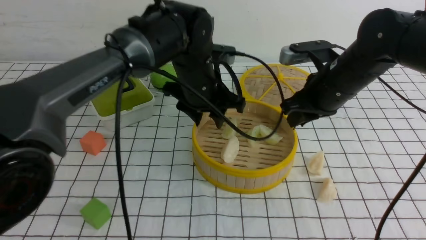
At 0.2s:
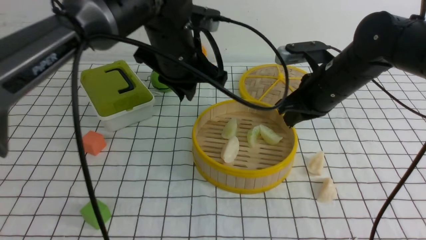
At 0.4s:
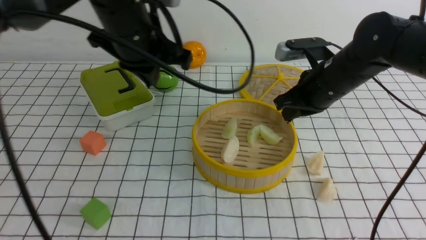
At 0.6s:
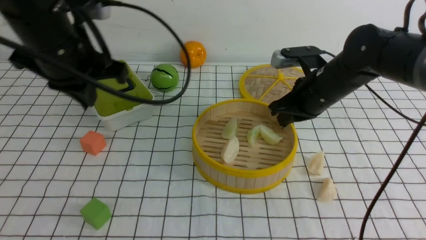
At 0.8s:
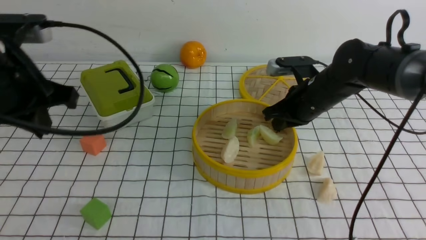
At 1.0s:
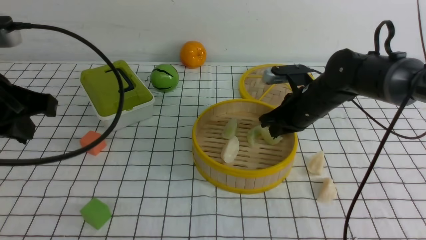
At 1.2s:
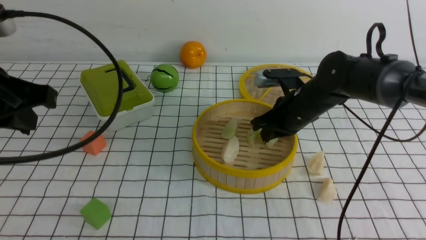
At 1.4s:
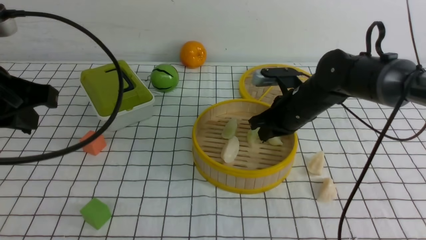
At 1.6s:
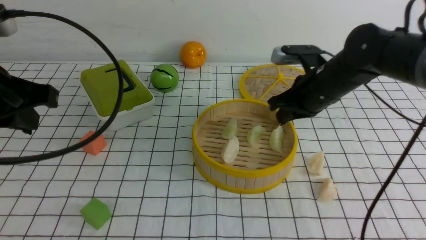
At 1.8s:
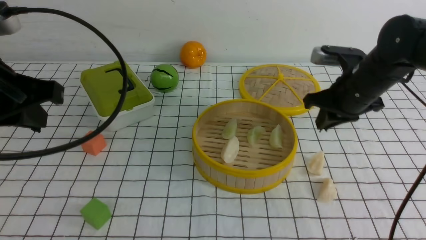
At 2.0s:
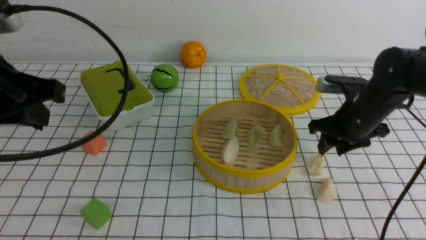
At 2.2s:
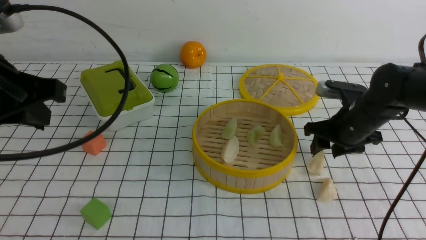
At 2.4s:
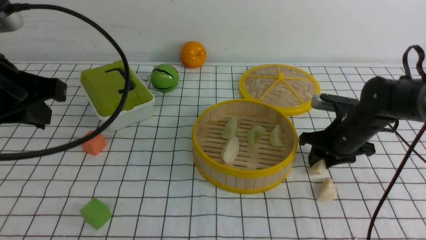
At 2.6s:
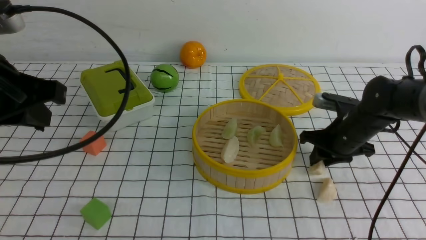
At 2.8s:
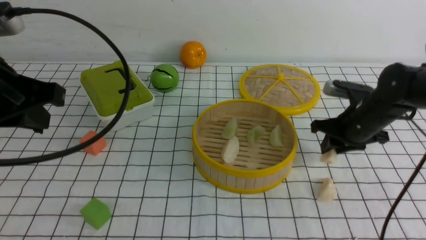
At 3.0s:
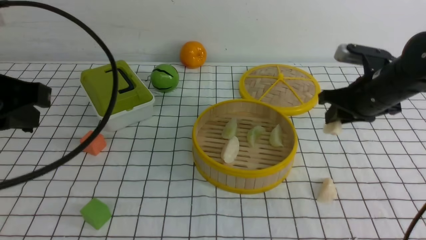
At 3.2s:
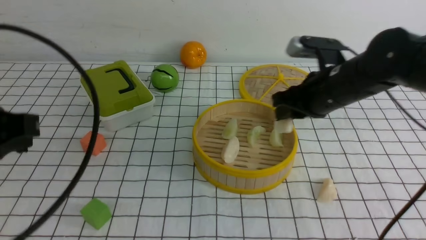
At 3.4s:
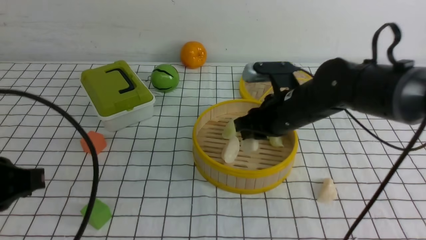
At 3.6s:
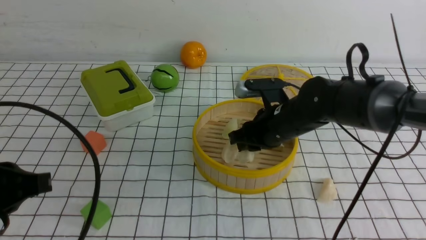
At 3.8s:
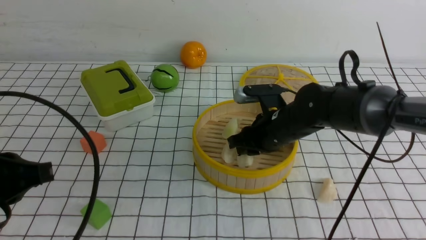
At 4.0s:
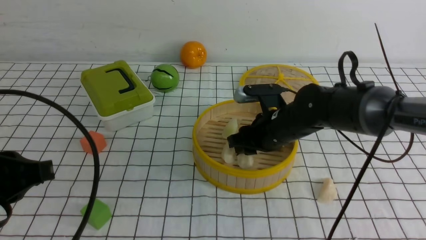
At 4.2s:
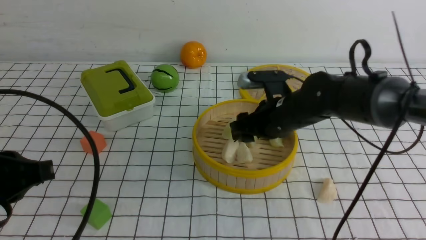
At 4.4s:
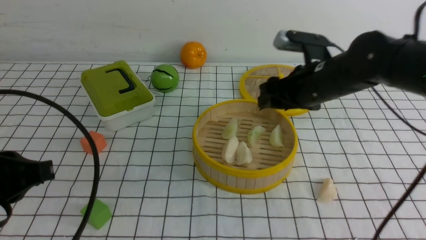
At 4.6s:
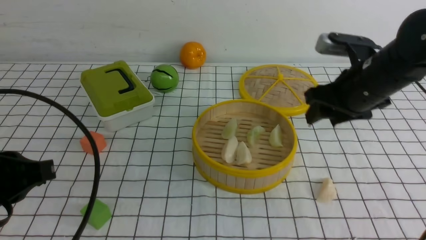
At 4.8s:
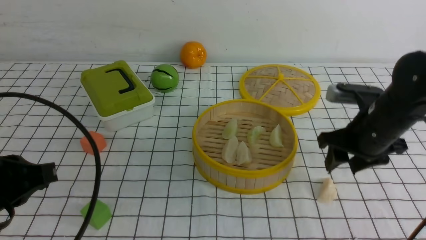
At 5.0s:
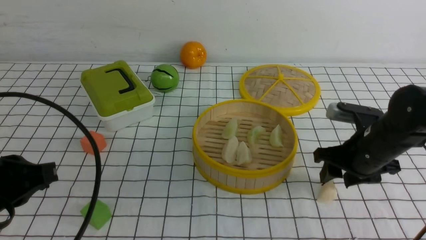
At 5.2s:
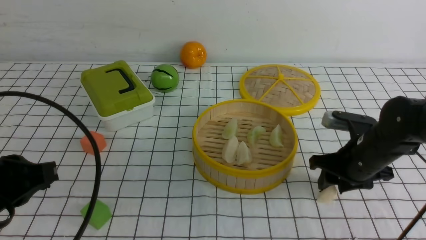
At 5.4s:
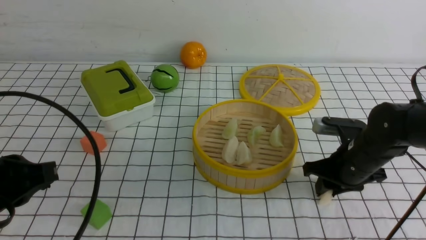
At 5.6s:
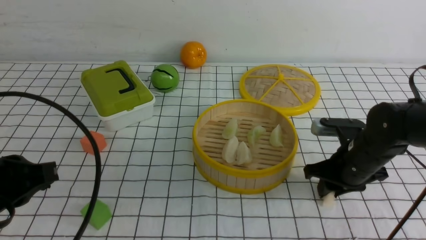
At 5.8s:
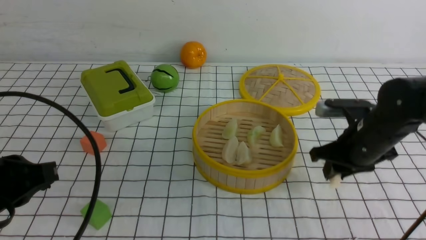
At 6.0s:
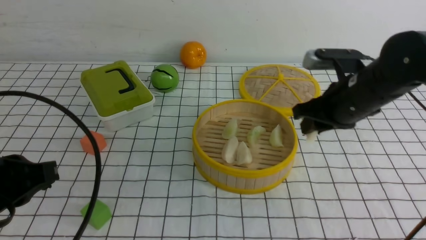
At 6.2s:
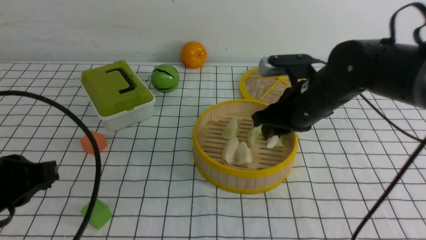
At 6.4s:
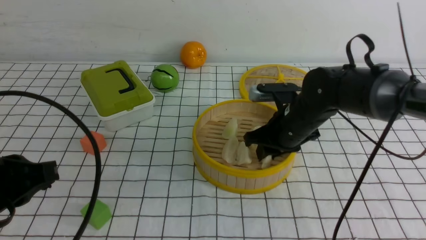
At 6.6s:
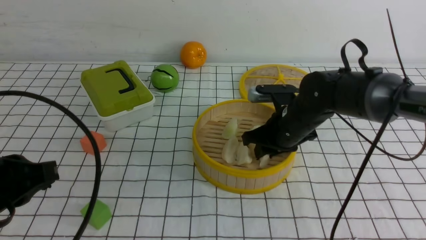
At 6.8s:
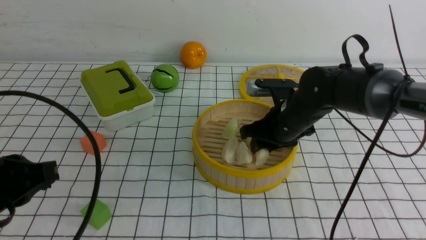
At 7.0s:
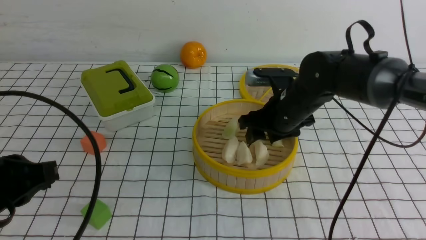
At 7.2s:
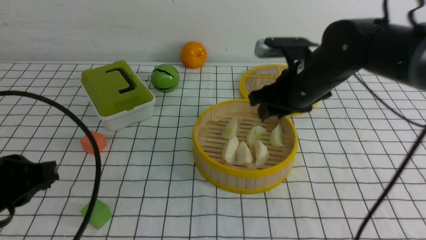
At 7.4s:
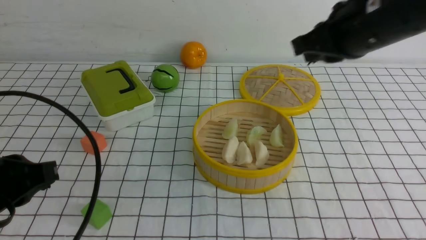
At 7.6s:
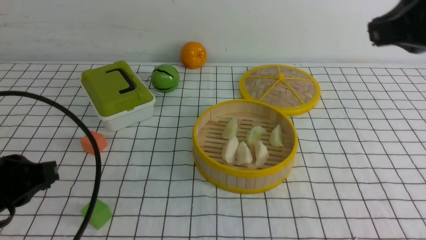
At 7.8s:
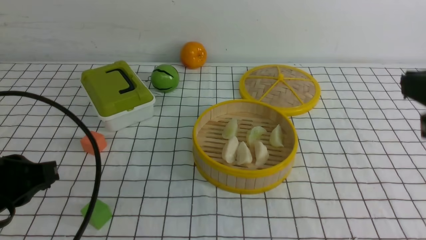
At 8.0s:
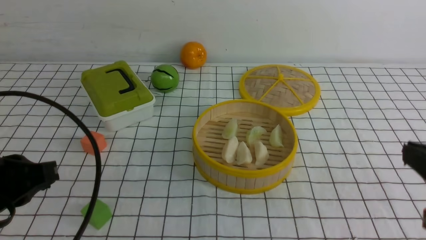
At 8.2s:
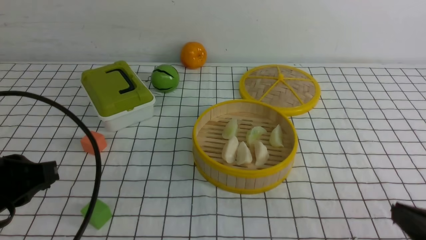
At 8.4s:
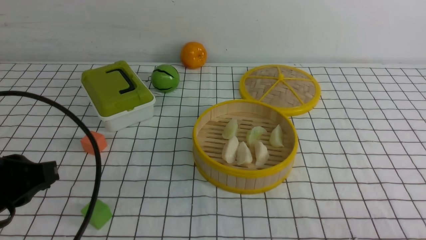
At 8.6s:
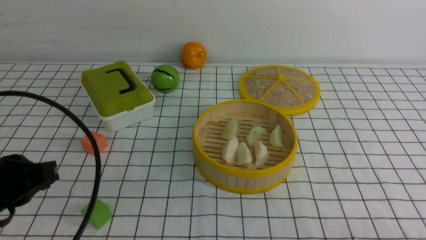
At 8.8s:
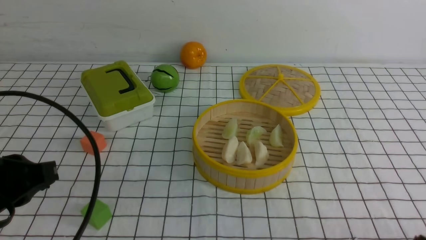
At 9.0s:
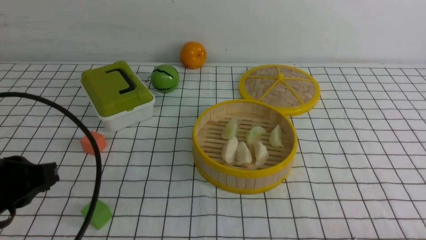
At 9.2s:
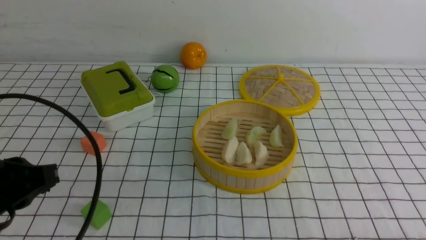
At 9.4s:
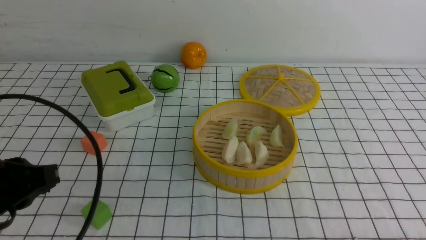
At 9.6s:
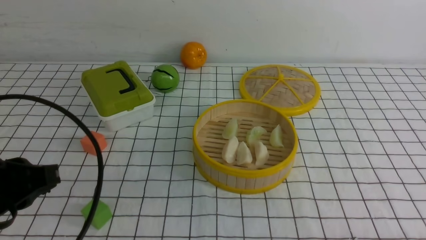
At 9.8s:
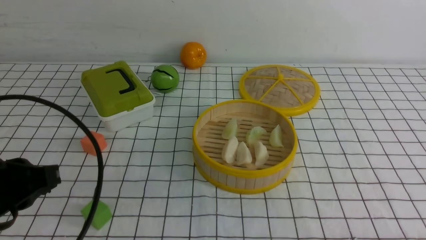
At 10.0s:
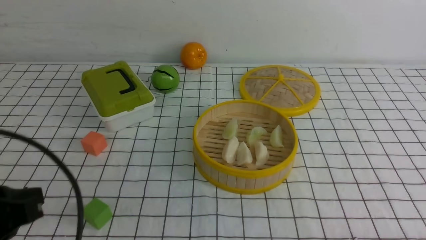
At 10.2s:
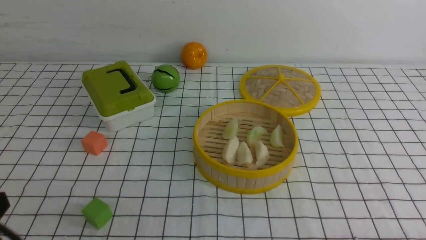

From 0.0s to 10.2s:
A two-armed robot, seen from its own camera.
Task of the whole recording: put the dumplings into the steamer on the table with the white tablecloth.
Step, from 0.2s to 2.6s: use the right arm to grab a dumpling.
Step, from 2.8s to 4.2s: use the right arm to put the dumpling into the steamer.
Step, from 4.4s to 5.4s: use the right arm to grab a dumpling.
Step, from 5.6s to 7.0s: use the right arm to put the dumpling into the steamer.
From 0.0s to 1.4s: The right gripper moves about 5 cm. The left gripper moves to the left and backward, some 25 cm, and closes up.
From 1.4s to 3.0s: The right gripper shifts about 5 cm to the right, and opens its fingers.
From 3.0s to 4.4s: The right gripper travels to the left by roughly 5 cm, and opens up. The left gripper travels downward by roughly 5 cm.
From 4.4s to 5.8s: The right gripper closes.
From 5.8s to 7.2s: The right gripper is displaced upward and to the left by roughly 10 cm.
From 7.2s to 8.8s: The right gripper heads backward, to the right and downward, covering roughly 35 cm, and closes.
From 8.8s to 10.2s: The left gripper shifts approximately 10 cm backward.

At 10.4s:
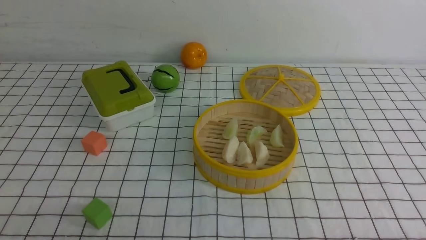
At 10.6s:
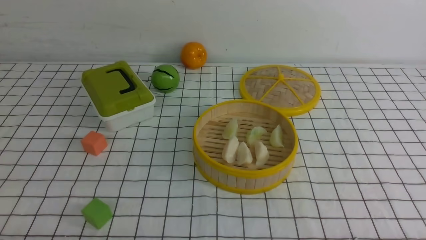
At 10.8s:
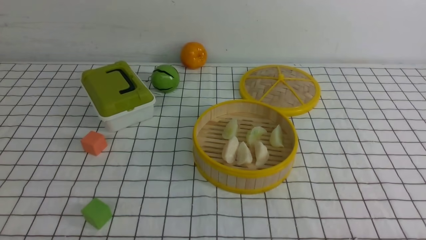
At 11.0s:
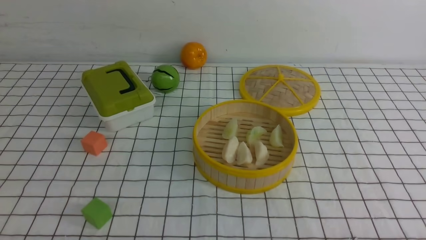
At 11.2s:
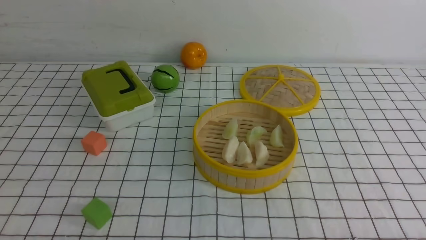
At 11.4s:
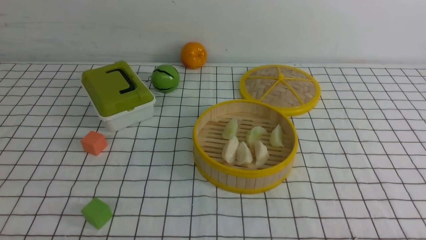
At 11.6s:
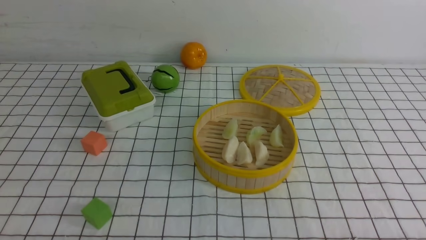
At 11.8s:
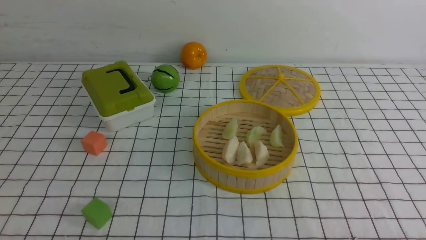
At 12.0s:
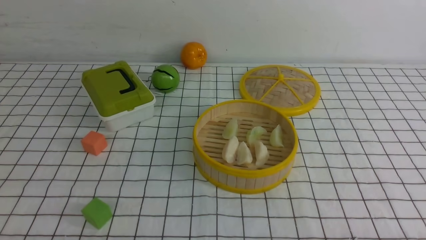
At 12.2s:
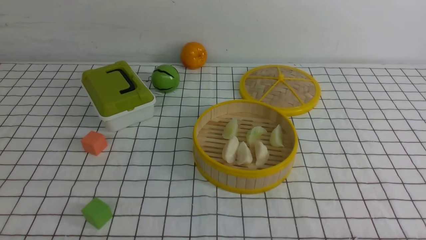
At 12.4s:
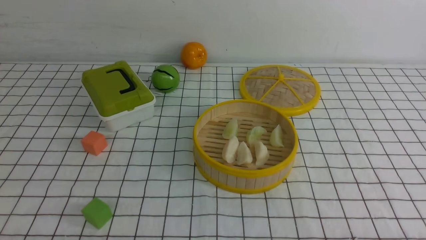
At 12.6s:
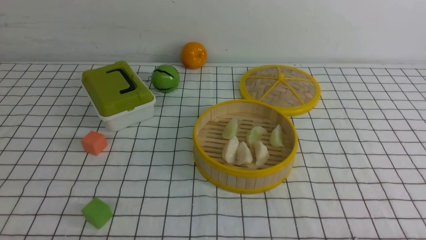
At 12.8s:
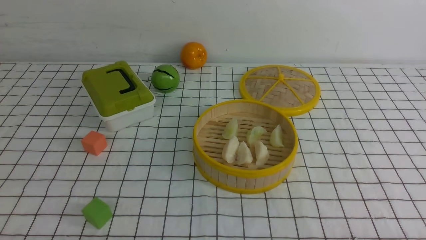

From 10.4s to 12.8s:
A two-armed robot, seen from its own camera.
Task of the whole recording: put the dumplings into the steamer on the table with the white tablecloth.
From 11.6s to 12.8s: Neither gripper changes place.
